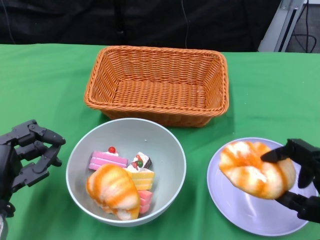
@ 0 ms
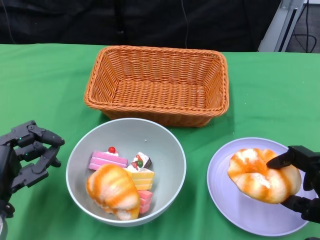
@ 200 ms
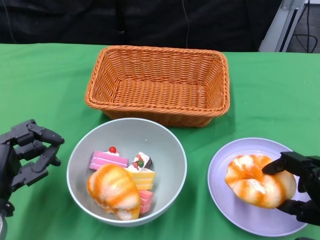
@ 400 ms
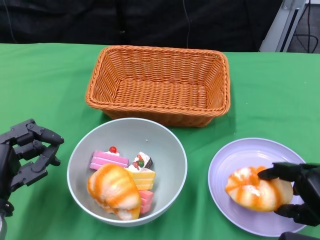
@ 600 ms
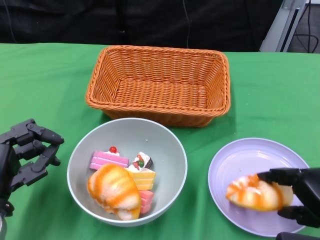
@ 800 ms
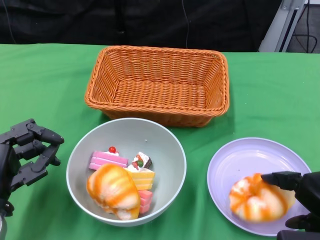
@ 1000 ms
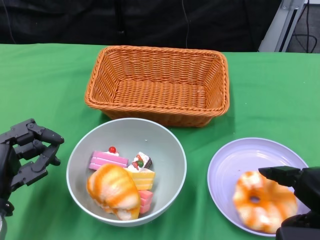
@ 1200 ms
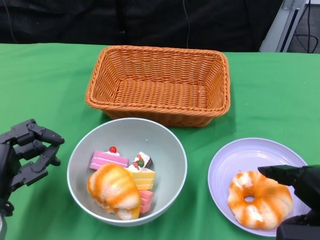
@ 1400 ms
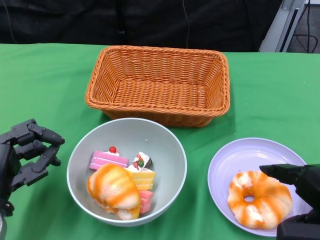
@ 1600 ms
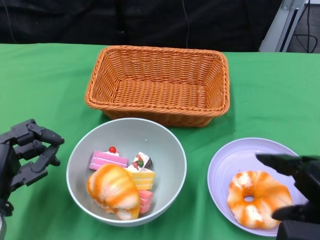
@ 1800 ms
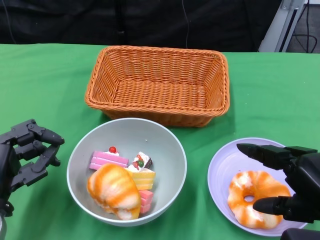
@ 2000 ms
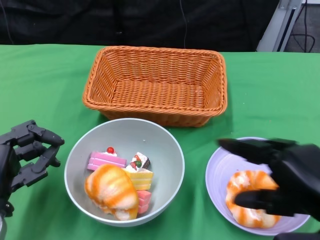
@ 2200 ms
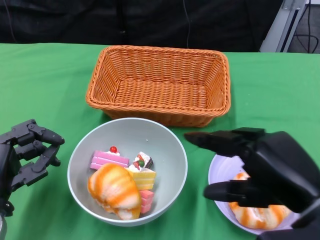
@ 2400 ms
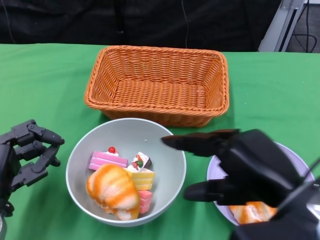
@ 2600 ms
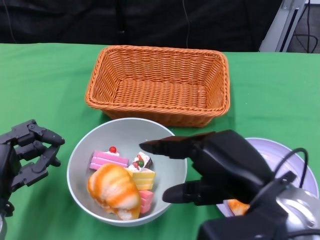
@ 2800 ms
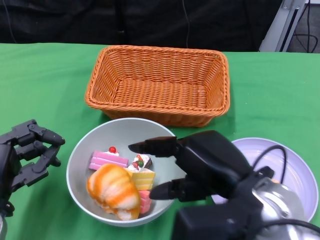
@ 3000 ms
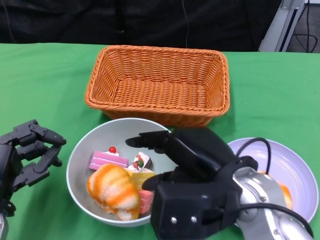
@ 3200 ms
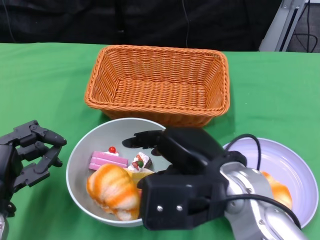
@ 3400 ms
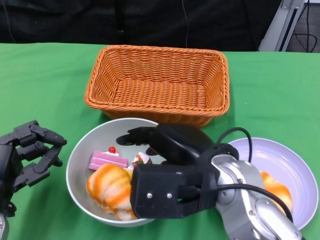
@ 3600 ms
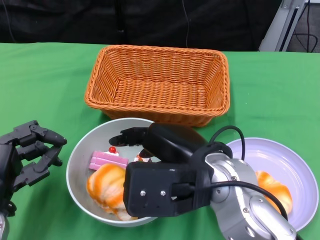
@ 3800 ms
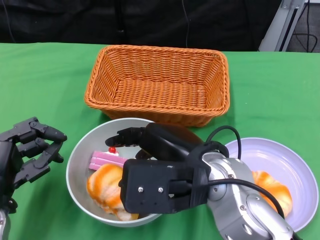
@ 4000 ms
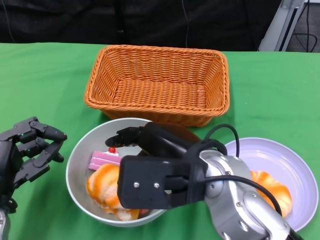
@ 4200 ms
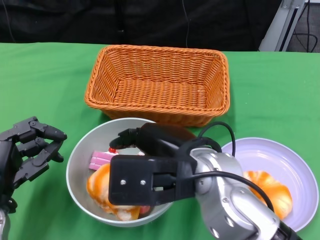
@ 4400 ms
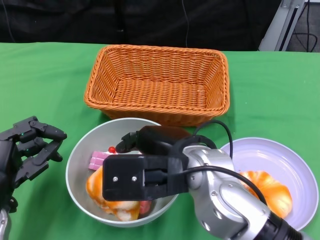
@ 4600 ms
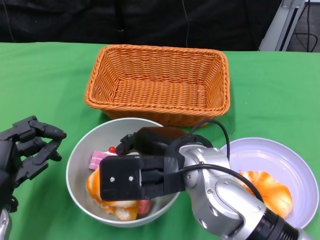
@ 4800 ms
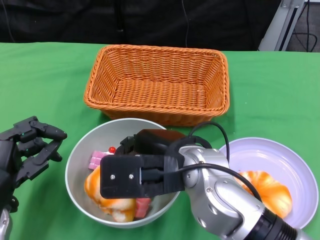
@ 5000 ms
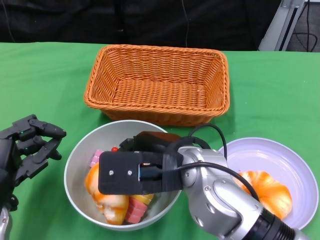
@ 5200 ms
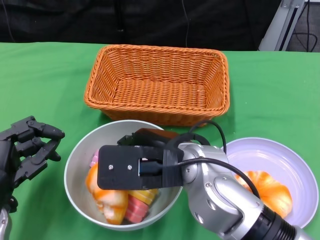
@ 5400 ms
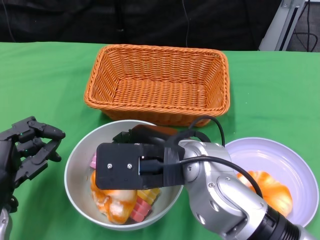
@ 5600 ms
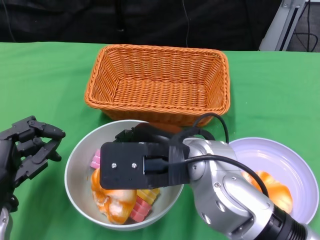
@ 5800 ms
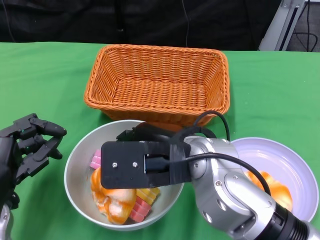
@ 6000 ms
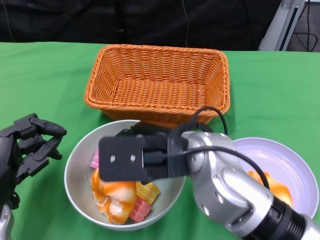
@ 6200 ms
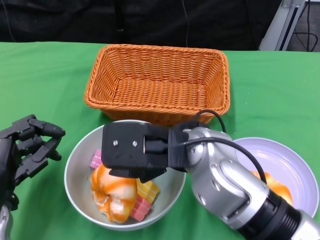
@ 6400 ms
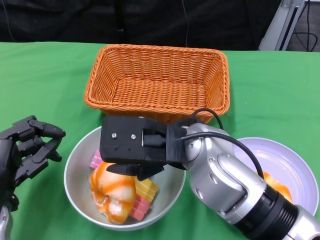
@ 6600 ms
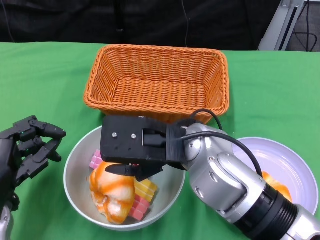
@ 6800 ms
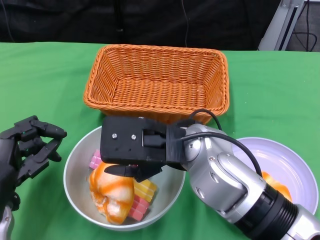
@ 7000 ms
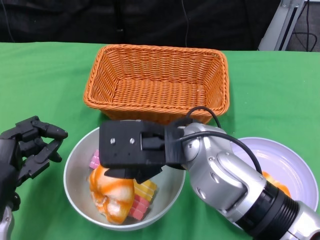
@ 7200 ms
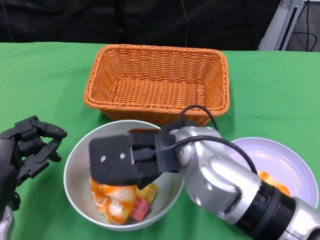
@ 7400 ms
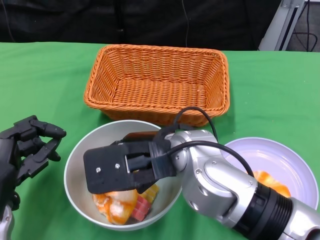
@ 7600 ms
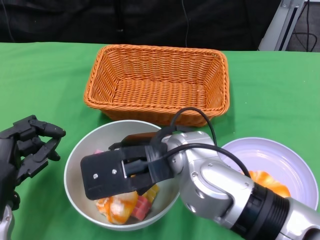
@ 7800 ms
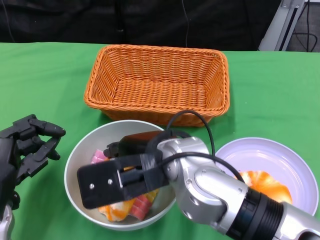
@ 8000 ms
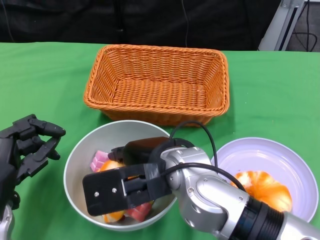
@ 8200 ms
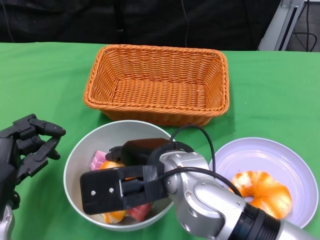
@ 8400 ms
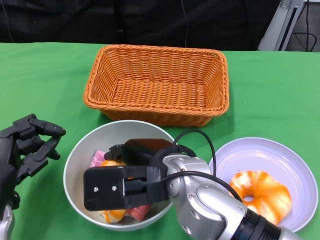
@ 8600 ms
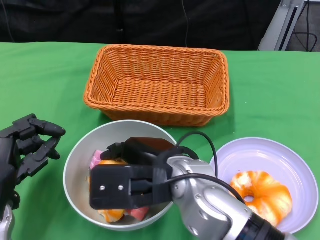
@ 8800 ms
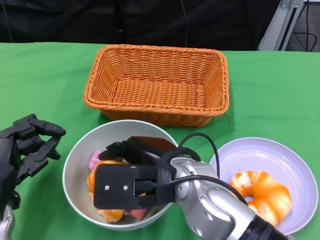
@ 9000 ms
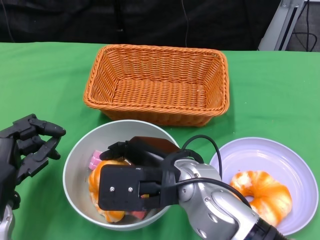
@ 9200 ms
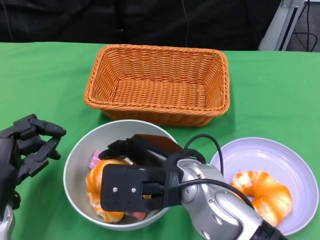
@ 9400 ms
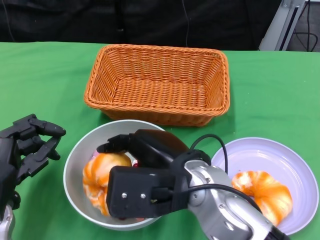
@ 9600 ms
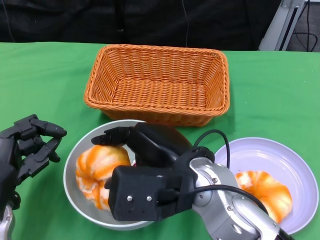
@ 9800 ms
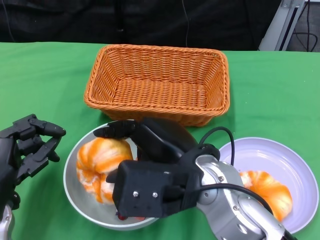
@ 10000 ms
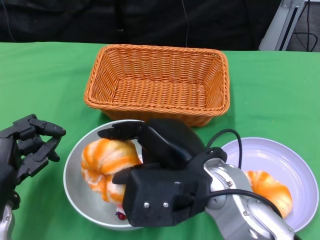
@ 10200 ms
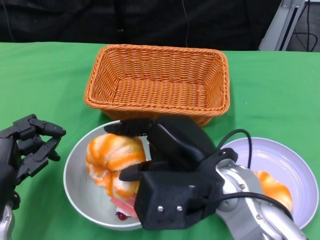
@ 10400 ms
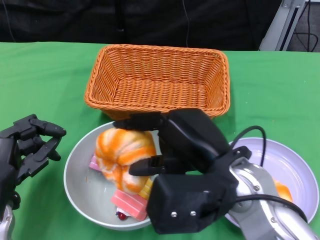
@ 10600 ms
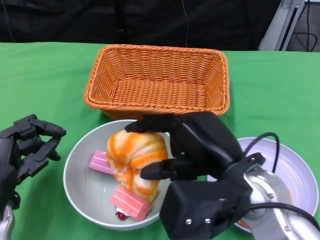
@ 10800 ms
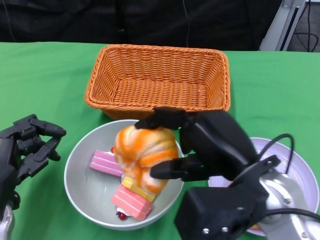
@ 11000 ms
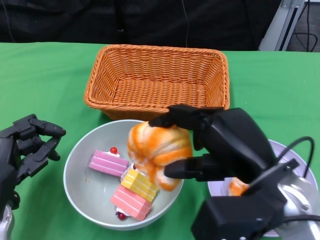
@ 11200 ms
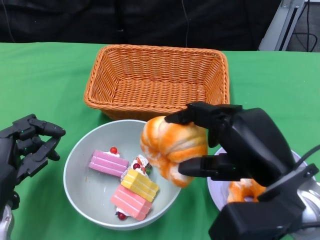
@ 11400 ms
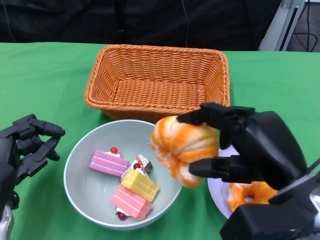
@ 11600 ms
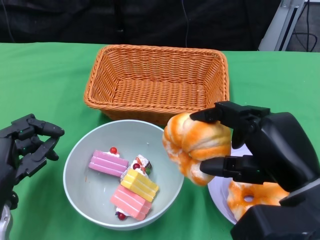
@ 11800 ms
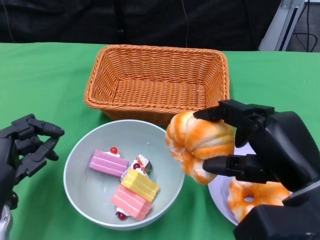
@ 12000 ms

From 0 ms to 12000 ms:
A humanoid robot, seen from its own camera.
From 1600 ms to 3000 ms: The right hand is displaced to the left by some 15 cm.
From 3000 ms to 4400 ms: The right hand heads to the left, covering approximately 5 cm.
From 6000 ms to 7600 ms: The hands make only small movements.
From 9000 ms to 10400 ms: The right hand changes place by approximately 5 cm.
From 10400 ms to 12000 ms: The right hand travels to the right by about 10 cm.

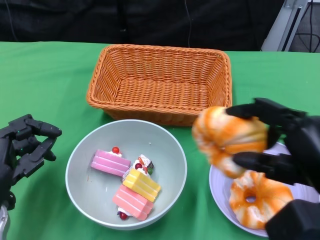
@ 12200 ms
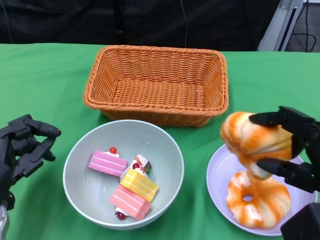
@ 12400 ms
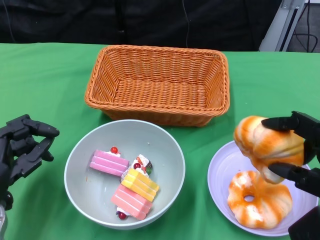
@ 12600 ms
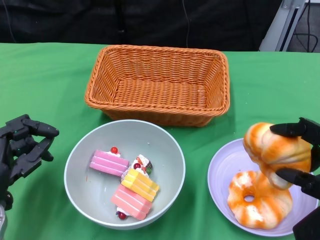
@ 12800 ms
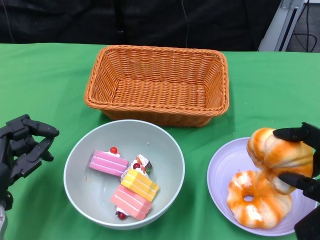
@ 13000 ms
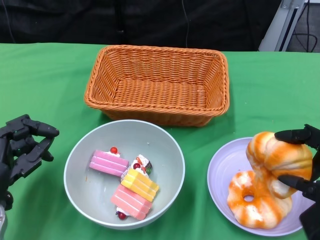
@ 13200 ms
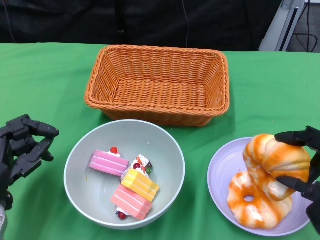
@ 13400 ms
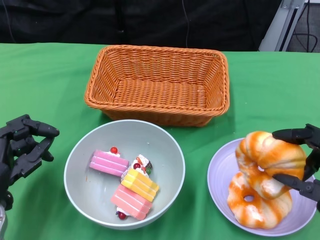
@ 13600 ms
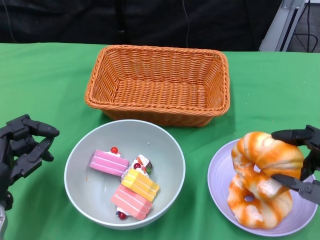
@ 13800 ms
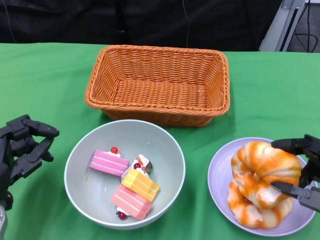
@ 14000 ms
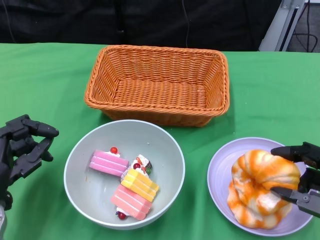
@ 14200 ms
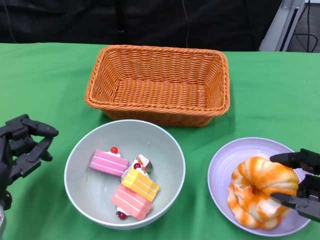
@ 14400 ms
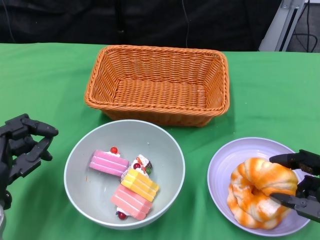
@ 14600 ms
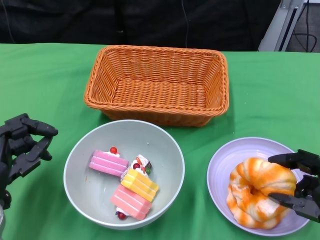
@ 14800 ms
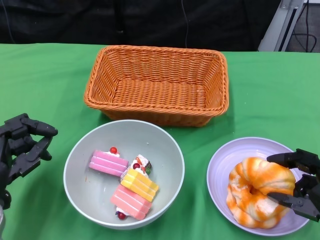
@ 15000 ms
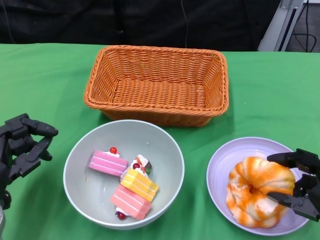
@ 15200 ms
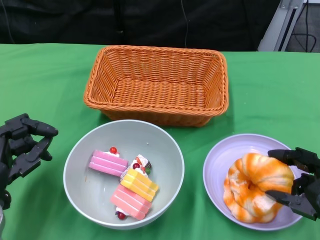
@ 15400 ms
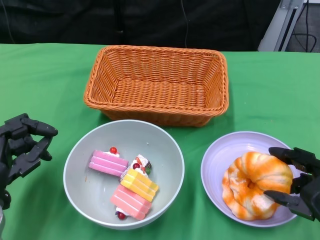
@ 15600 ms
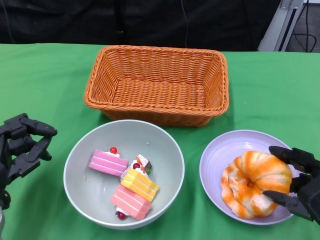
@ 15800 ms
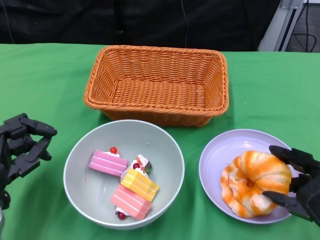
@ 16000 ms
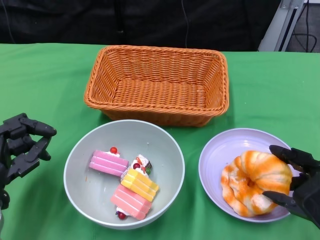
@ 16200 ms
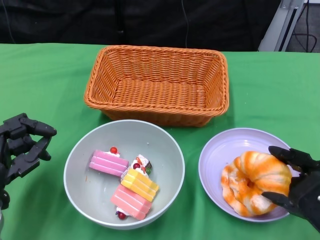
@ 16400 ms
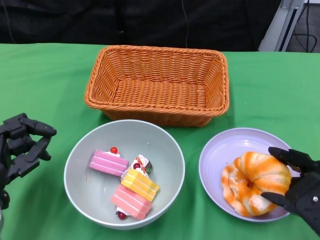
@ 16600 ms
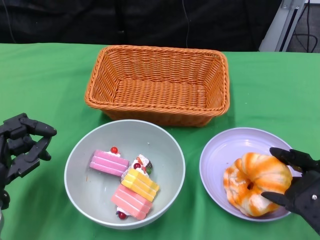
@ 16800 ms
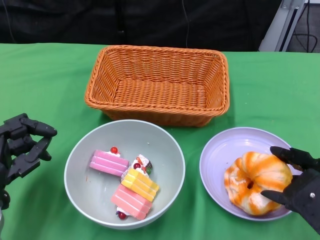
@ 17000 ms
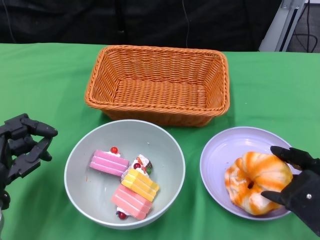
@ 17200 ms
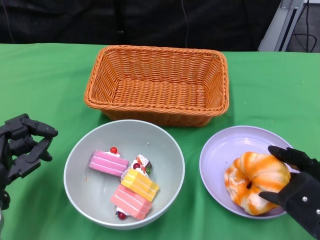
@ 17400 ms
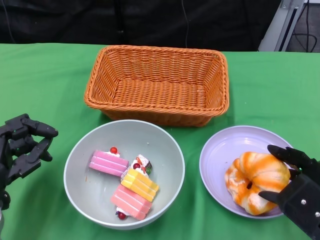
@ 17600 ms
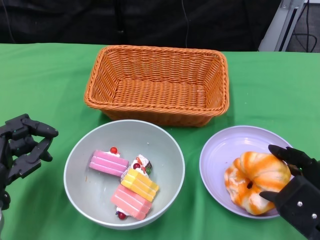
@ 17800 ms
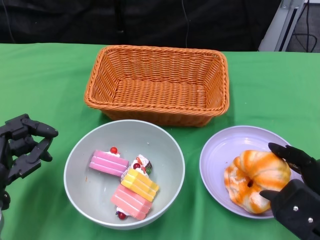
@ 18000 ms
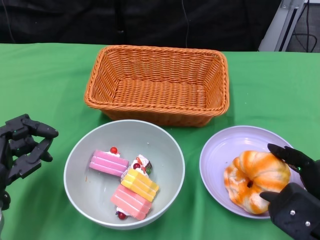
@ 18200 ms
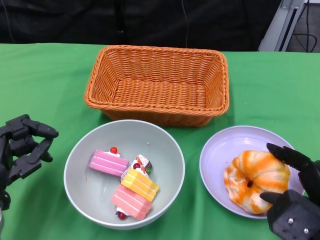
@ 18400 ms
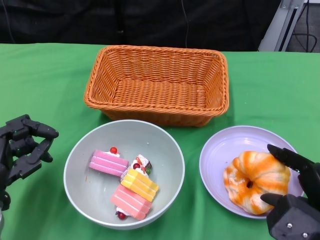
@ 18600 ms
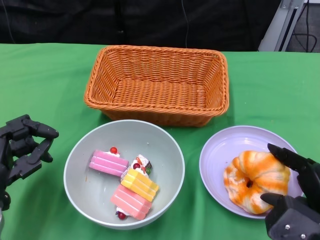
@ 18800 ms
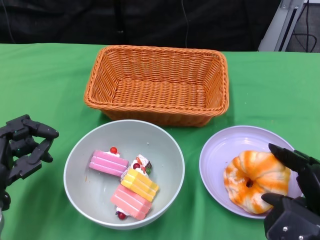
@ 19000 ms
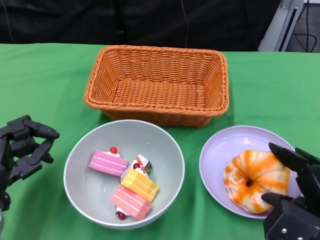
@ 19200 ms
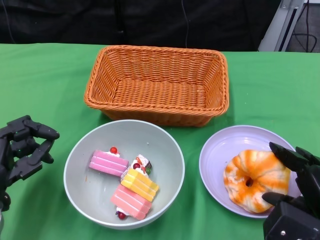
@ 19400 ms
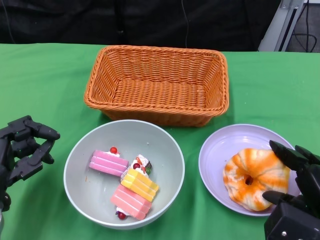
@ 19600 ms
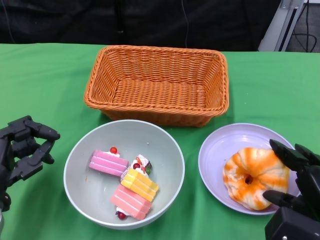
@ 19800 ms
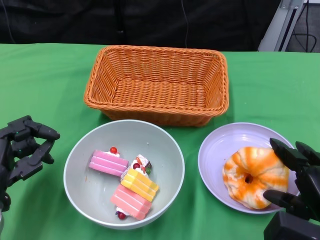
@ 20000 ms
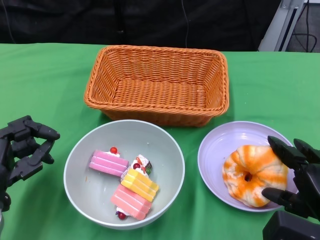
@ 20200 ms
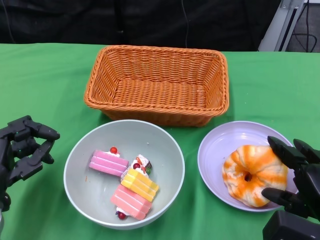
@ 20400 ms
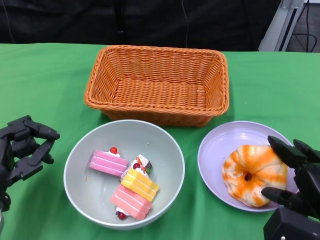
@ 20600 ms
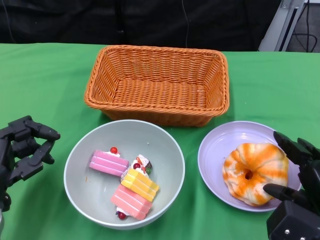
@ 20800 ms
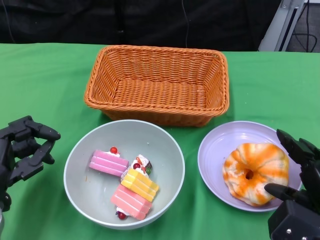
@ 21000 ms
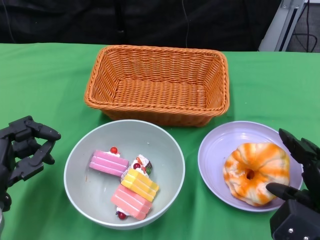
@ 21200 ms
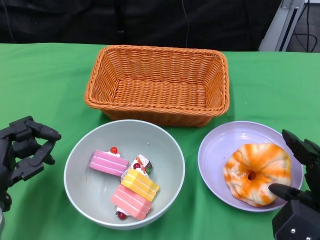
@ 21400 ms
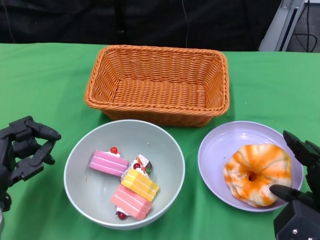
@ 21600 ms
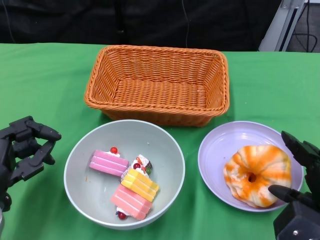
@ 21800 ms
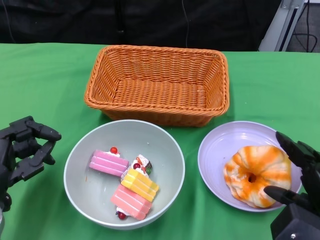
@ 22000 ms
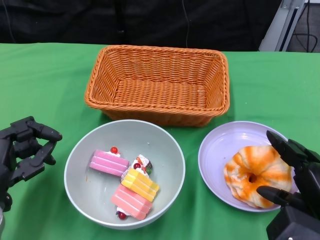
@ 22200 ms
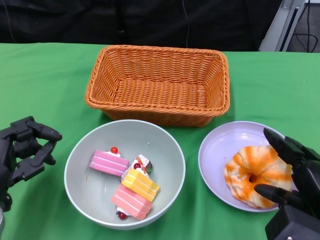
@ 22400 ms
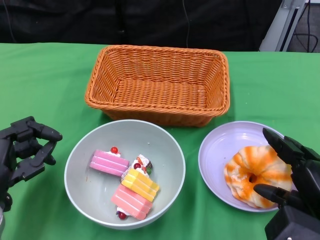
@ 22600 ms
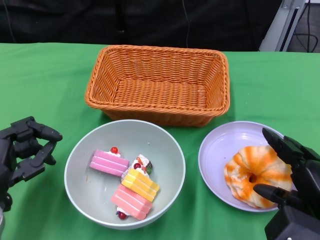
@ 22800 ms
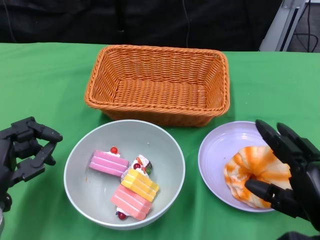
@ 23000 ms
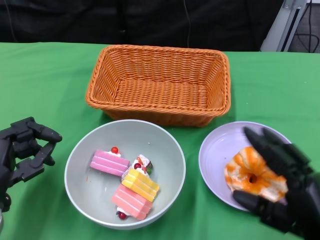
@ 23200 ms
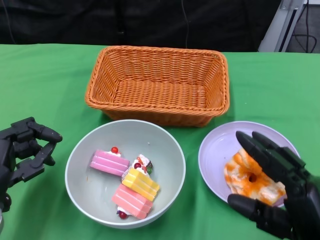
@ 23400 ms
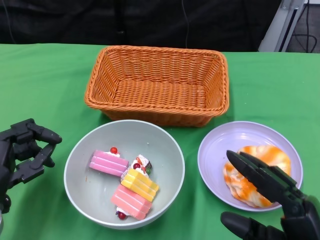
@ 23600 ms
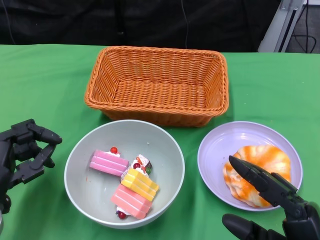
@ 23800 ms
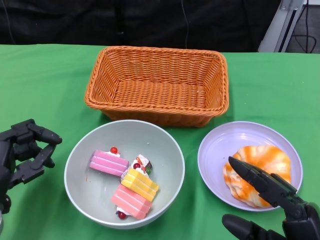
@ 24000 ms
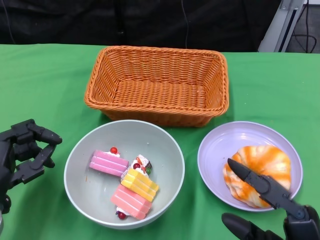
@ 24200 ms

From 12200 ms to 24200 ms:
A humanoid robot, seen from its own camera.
Step, from 12200 ms to 23200 ms: Pick up the bread with the right gripper and place it on the plate.
From 12200 ms to 13800 ms: The right hand ends up roughly 5 cm from where it was.
From 13800 ms to 16600 ms: There are only small adjustments of the hands.
From 16600 ms to 18200 ms: The hands make only small movements.
From 18200 ms to 19800 ms: The hands stay close to where they were, moving slightly.
From 19800 ms to 21200 ms: Both hands stay about where they are.
From 21200 ms to 22600 ms: The hands stay close to where they were, moving slightly.
From 22600 ms to 24200 ms: The right hand heads backward and to the left, covering roughly 10 cm.
